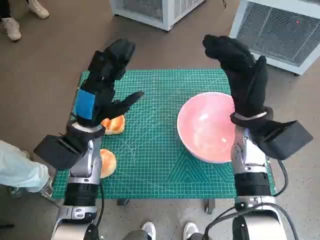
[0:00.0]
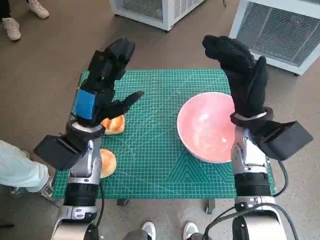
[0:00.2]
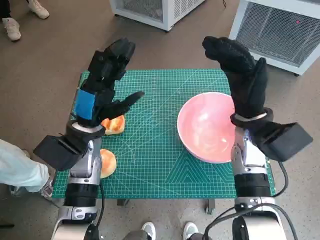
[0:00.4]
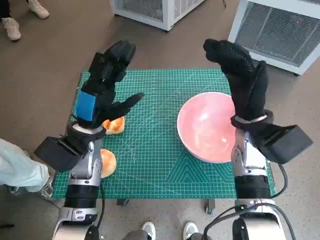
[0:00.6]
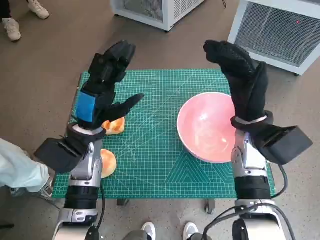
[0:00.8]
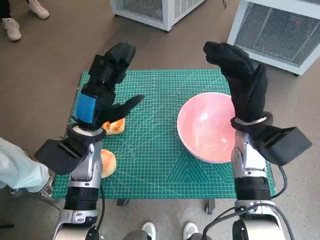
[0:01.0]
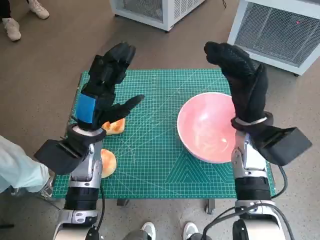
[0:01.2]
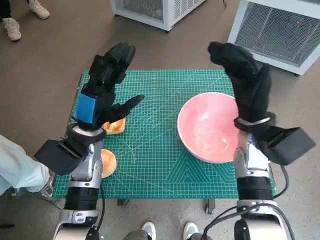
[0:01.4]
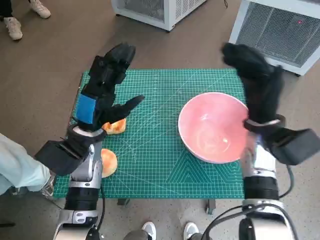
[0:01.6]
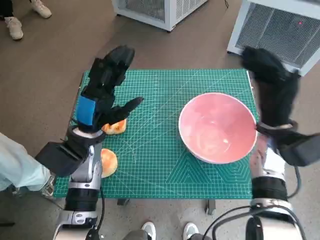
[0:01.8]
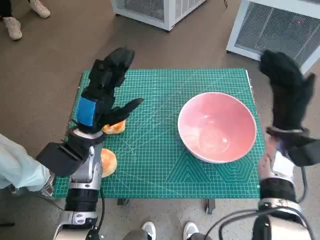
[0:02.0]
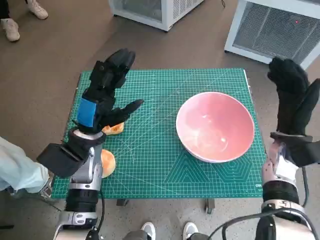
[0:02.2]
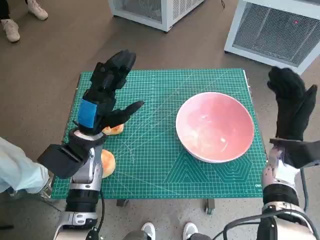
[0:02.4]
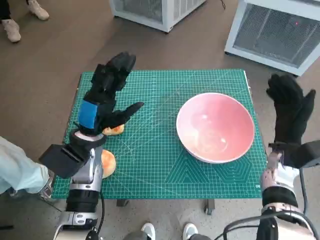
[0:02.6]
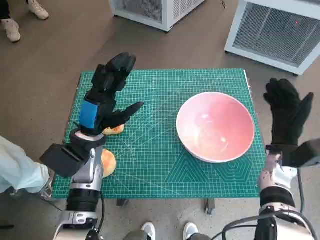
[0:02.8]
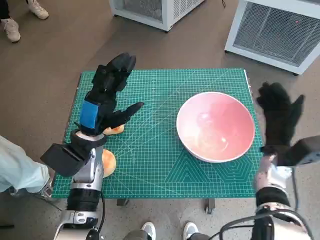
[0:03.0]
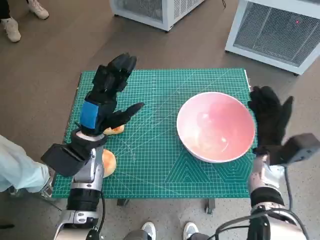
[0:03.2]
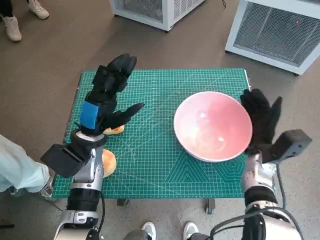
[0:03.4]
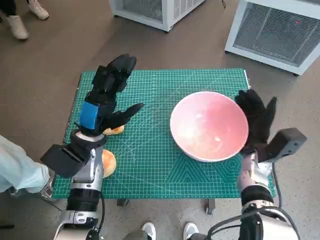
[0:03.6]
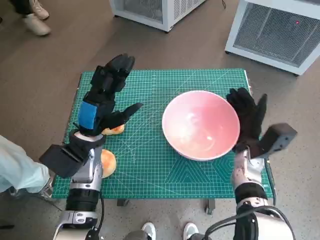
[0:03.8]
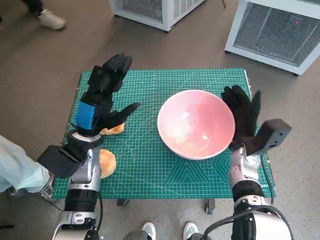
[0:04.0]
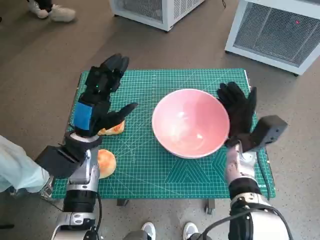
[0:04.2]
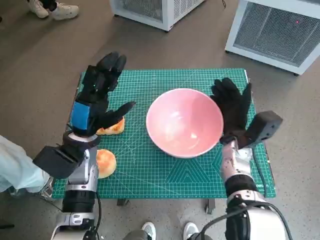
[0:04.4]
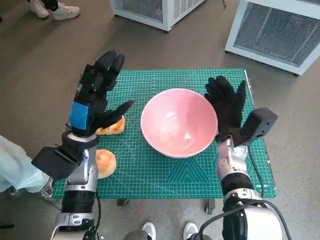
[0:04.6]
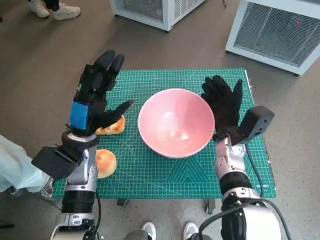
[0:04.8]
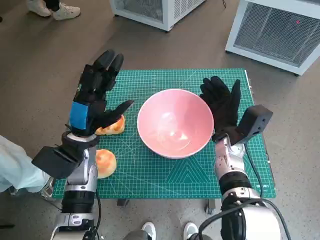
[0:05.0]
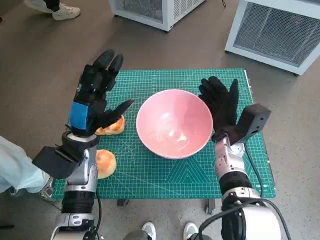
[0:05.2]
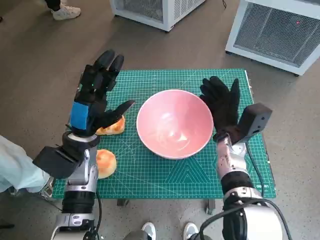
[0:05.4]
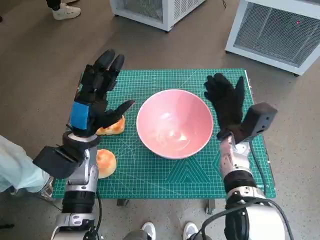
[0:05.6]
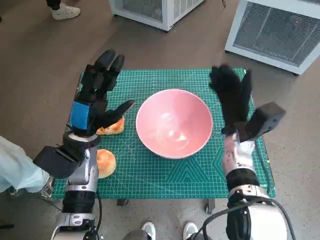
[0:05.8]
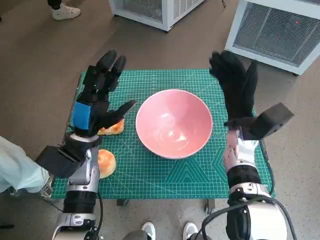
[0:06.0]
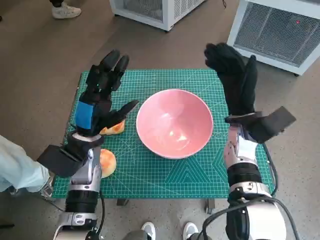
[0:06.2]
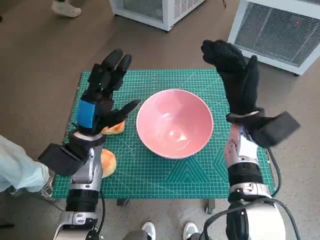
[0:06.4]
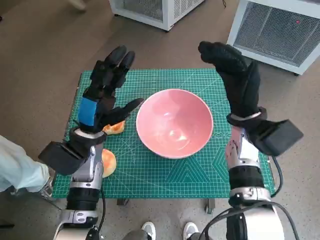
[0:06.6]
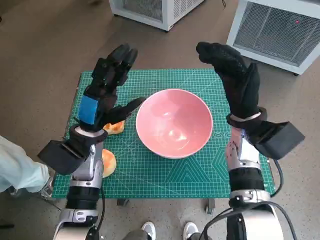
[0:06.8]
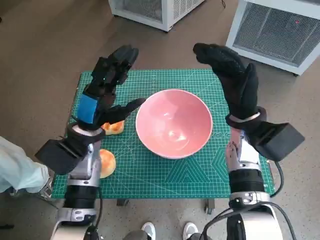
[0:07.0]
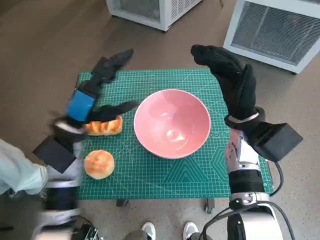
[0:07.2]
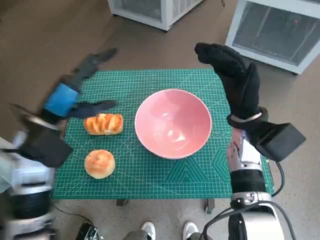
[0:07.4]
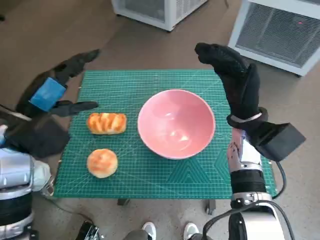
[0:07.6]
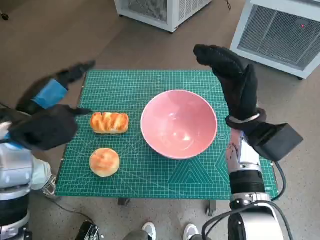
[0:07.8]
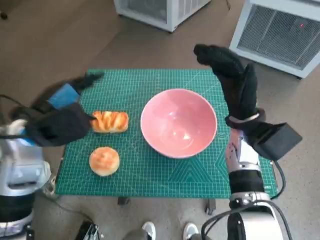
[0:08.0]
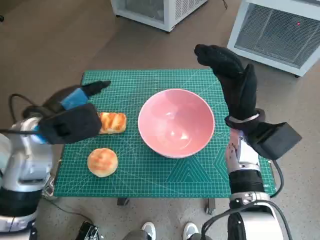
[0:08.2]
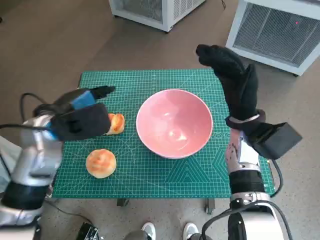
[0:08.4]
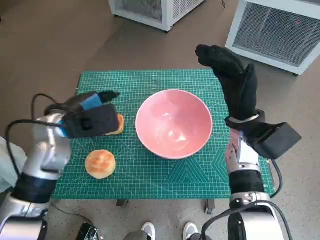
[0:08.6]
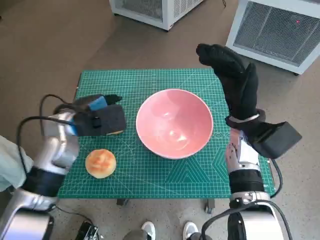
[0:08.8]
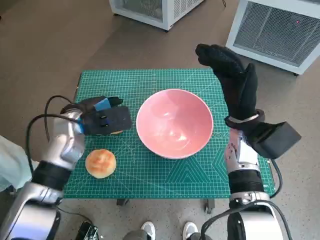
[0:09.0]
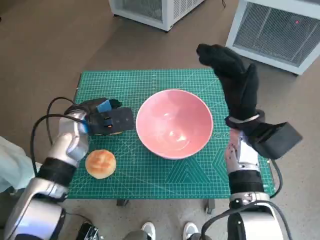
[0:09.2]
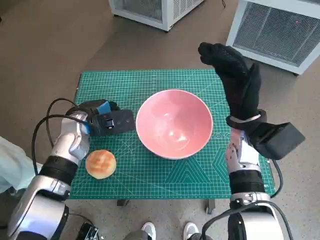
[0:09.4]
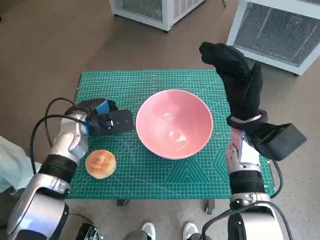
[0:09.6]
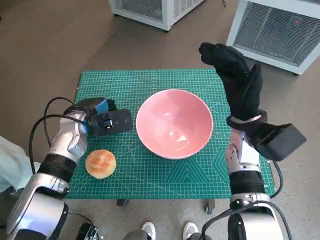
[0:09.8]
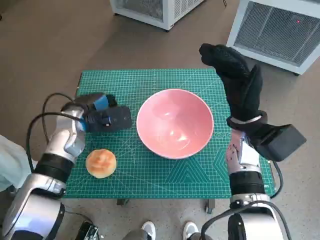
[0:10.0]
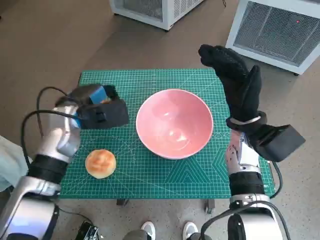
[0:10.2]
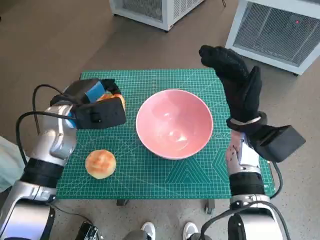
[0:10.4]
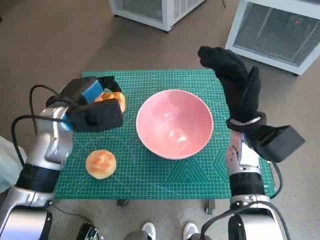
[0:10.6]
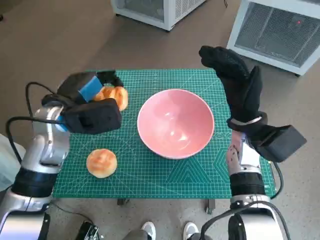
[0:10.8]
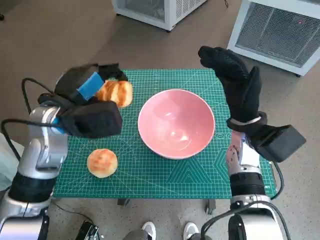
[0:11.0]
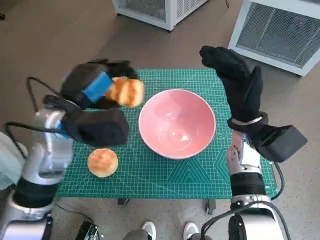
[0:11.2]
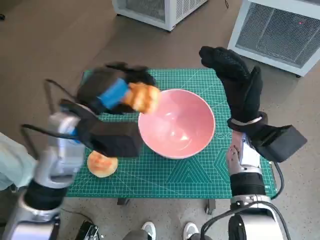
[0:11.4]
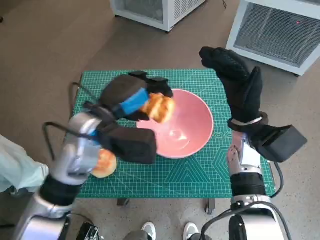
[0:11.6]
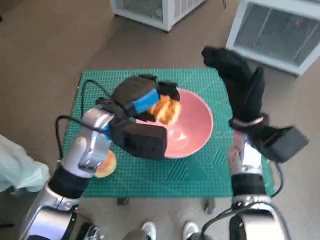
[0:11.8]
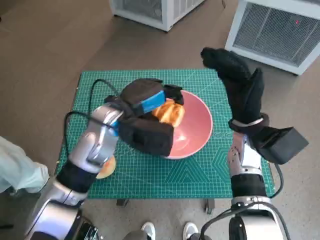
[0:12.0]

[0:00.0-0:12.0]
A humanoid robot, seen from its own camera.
Task of the whole recording: Push the bowl into the center of the table and put the bread into the bowl.
Step, 0.0 to 5.4 s: Move the pink bowl to the center of table with right hand.
Step, 5.8 to 9.4 s: Grasp the long bread with left hand.
1.6 to 3.0 s: The right hand shifts about 10 cm downward and to the right.
3.0 to 4.4 s: The right hand goes roughly 10 cm to the left.
6.0 to 7.6 s: The left hand is displaced upward and to the left by roughly 10 cm.
7.6 to 9.0 s: The left hand heads forward and downward, covering approximately 10 cm.
9.0 to 10.4 s: The hands stay close to where they were, moving slightly.
10.4 to 12.0 s: The left hand goes roughly 10 cm to the right.

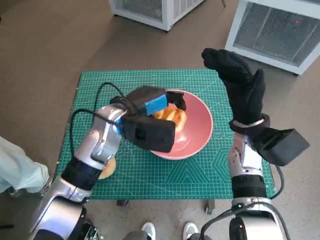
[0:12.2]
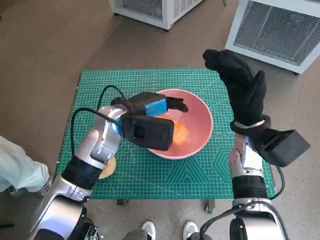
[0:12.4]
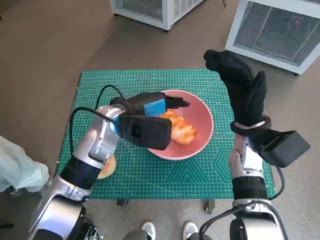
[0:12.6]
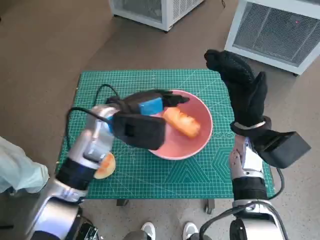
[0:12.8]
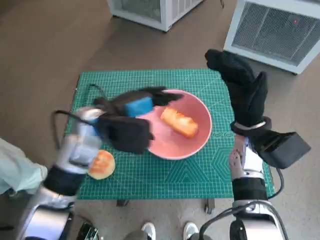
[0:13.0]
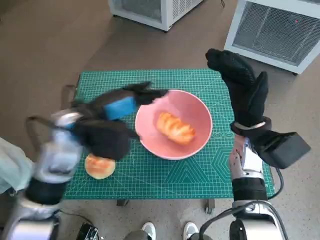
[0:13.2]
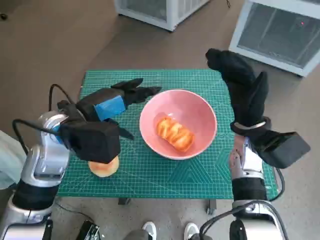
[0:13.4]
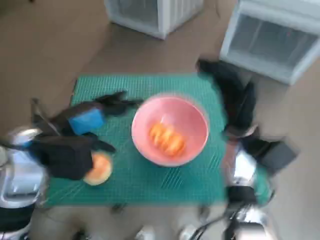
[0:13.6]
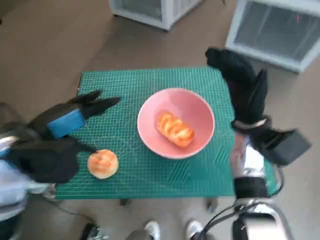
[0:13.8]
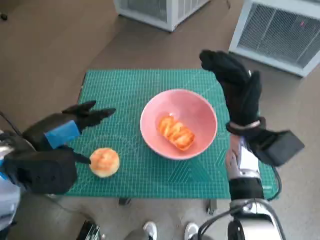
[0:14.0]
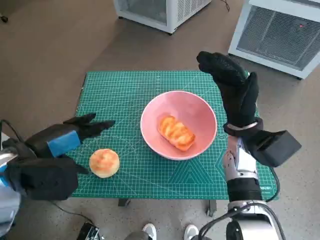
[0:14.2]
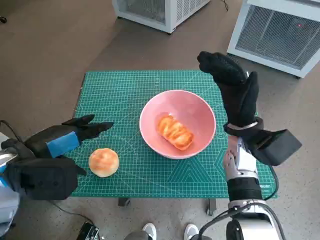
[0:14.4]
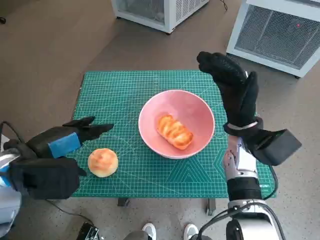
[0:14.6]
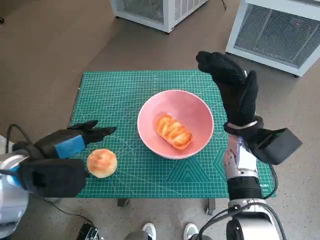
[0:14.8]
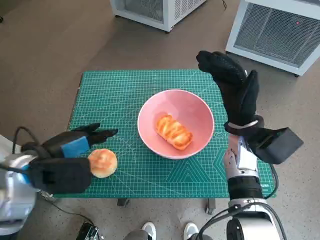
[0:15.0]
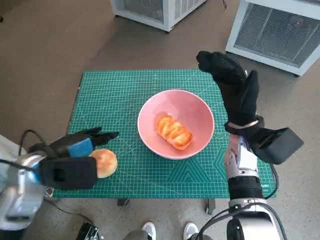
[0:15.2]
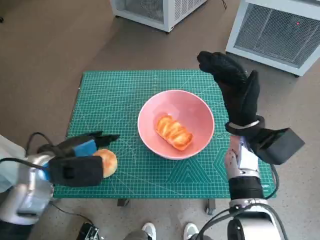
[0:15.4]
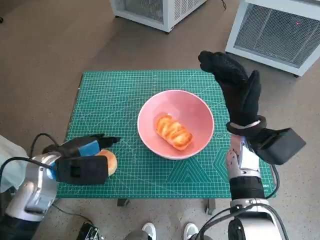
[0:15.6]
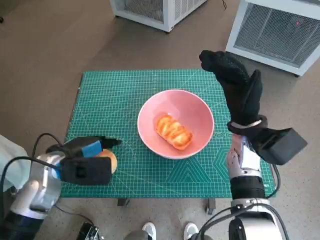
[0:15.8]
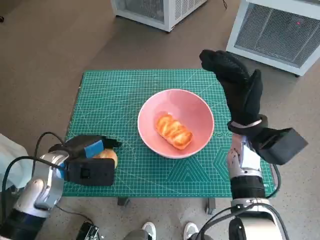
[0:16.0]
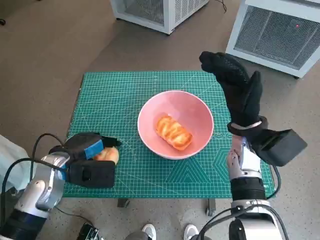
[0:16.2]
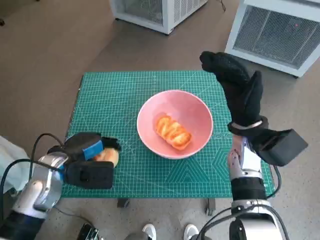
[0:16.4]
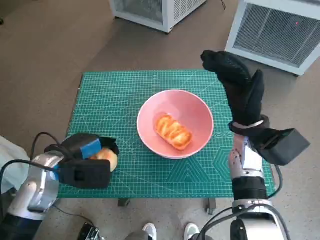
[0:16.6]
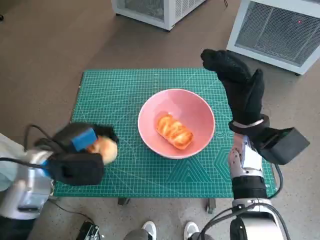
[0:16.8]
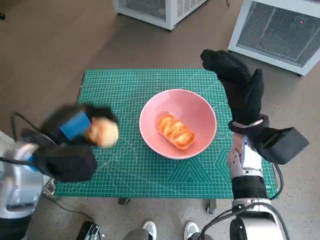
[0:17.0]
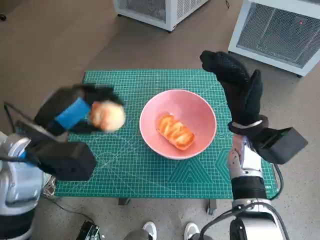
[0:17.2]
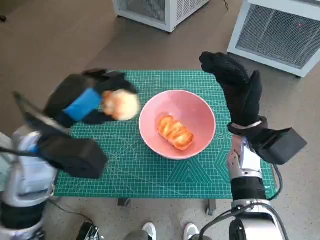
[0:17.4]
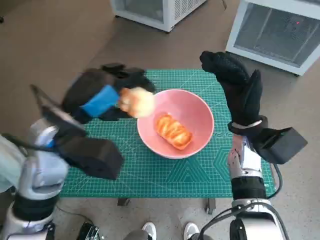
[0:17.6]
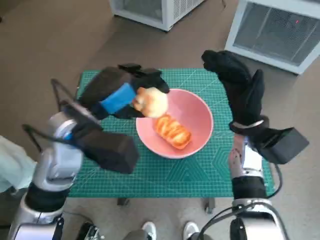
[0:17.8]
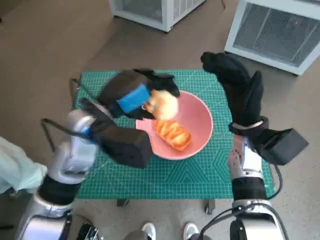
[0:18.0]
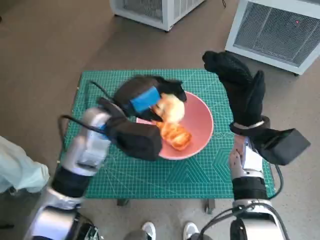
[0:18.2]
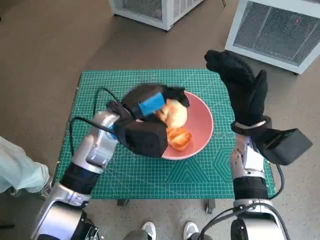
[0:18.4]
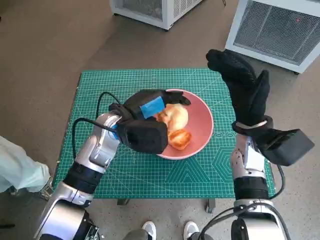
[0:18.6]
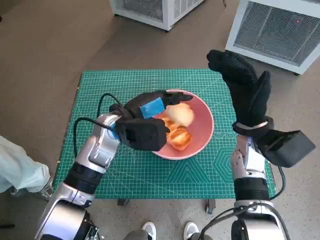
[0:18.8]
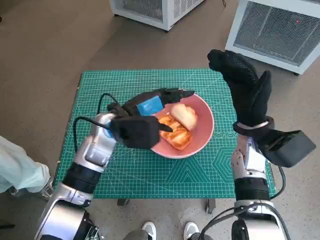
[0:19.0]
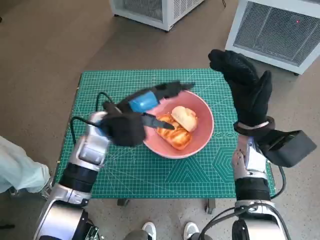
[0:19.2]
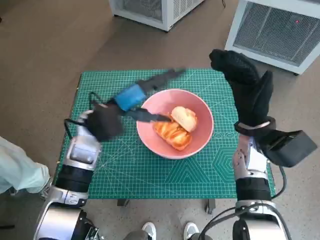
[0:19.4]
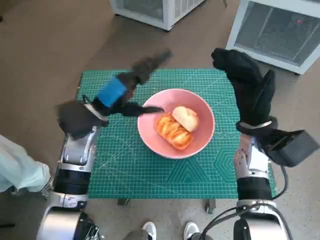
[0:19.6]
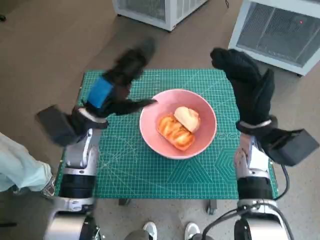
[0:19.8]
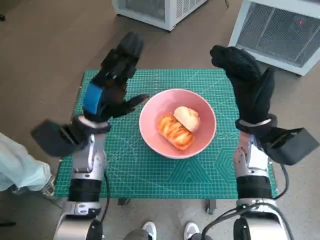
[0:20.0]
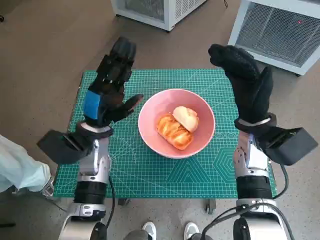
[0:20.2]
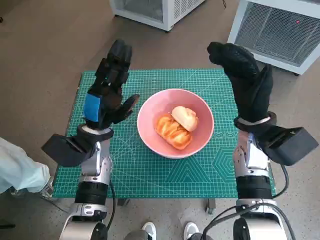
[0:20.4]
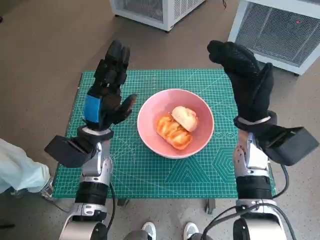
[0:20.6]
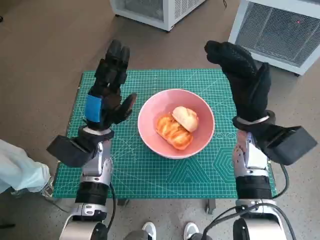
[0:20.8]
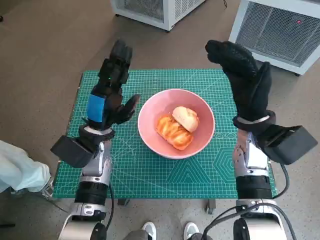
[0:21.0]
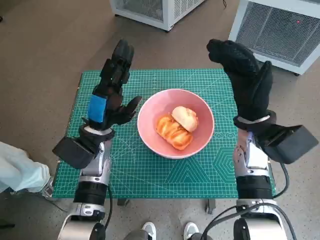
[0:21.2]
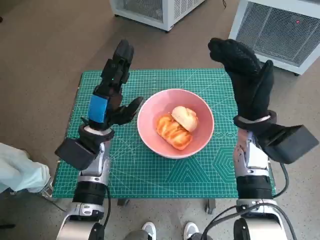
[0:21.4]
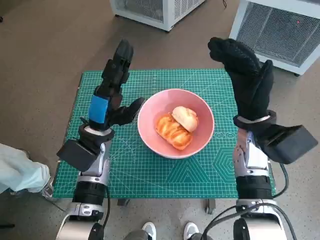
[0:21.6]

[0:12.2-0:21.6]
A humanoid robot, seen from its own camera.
Task of the whole recording: Push the bowl into the center of the table and put the bread into the bowl.
Step, 12.6 to 16.0 s: Grasp the round bread with left hand.
Step, 16.2 to 18.8 s: Place the round bread in pink bowl with left hand.
12.2 to 13.8 s: The left hand travels to the left and backward by about 15 cm.
13.8 to 15.4 s: The left hand heads downward, covering about 10 cm.
17.0 to 18.4 s: The left hand moves to the right and forward, roughly 15 cm.
18.4 to 20.0 s: The left hand shifts some 5 cm to the left.
20.0 to 21.6 s: The hands make only small movements.

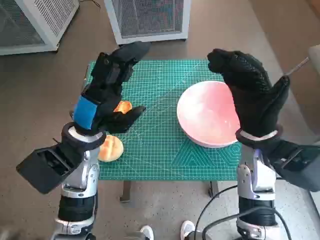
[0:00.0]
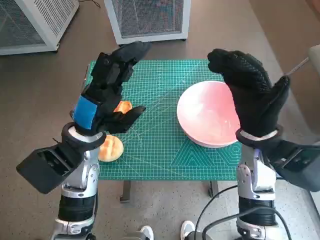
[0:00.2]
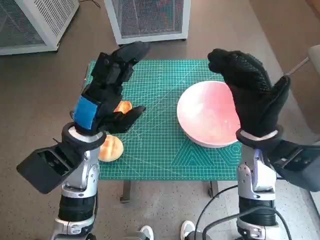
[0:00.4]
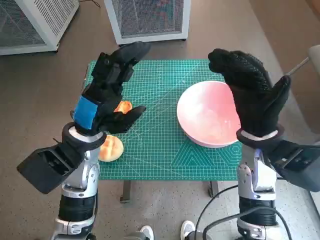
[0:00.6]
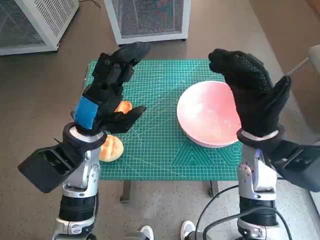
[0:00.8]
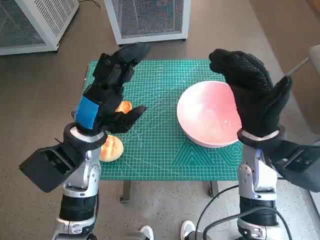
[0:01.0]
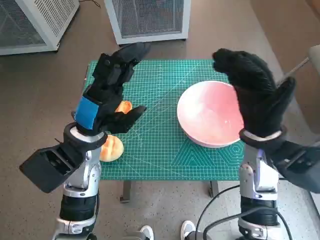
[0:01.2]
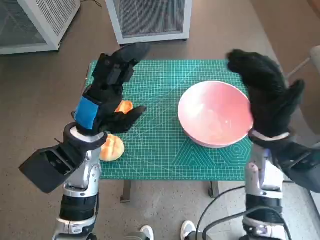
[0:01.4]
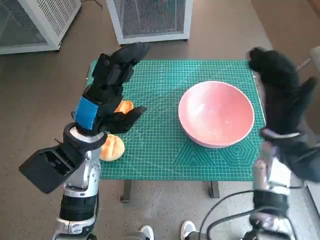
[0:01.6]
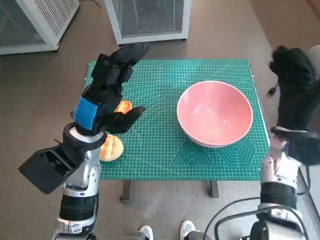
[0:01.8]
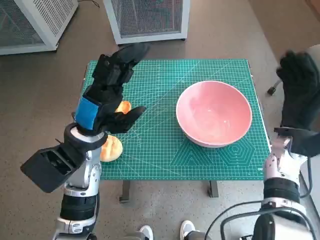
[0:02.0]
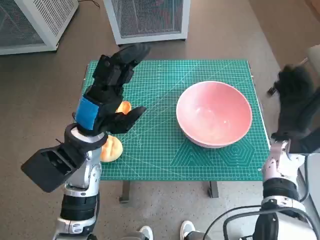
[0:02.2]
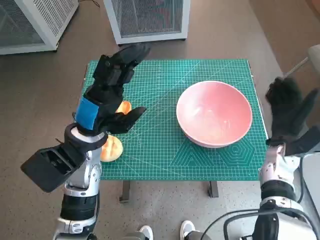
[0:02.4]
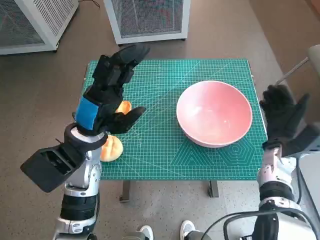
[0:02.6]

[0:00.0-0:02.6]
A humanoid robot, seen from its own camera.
Task of the whole recording: Push the bowl into the center of the table and put the bread into the bowl.
1.2 to 2.6 s: The right hand heads downward and to the right, covering roughly 15 cm.
